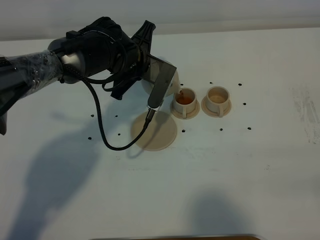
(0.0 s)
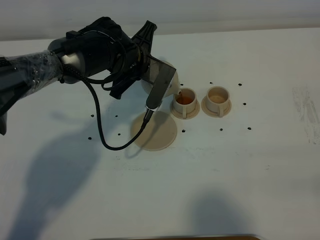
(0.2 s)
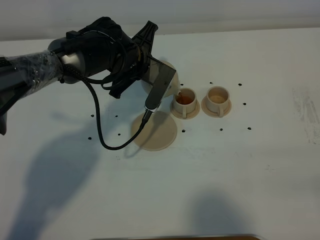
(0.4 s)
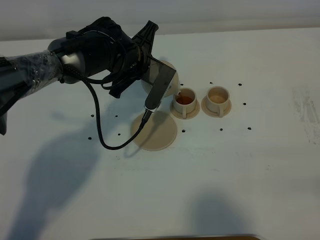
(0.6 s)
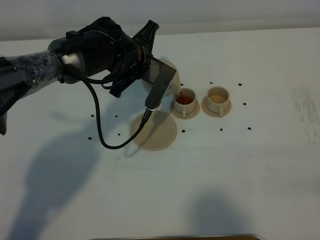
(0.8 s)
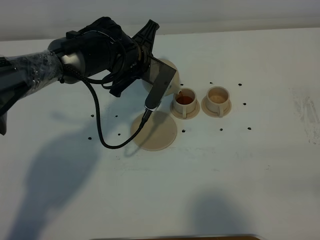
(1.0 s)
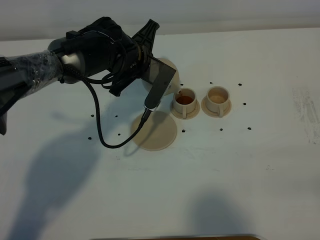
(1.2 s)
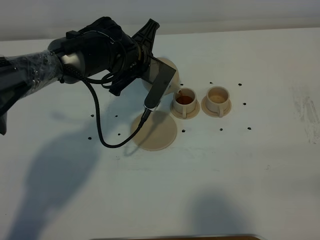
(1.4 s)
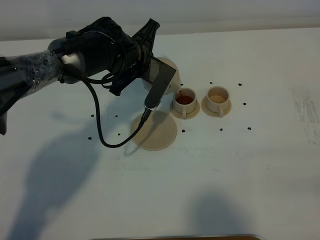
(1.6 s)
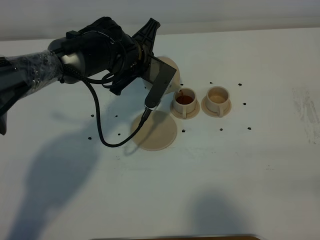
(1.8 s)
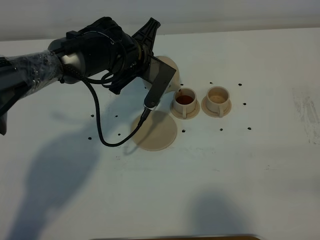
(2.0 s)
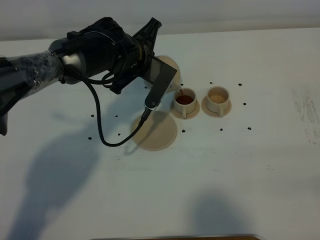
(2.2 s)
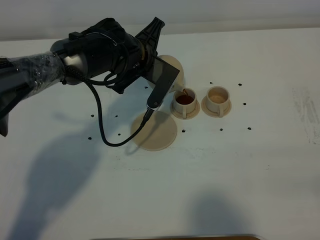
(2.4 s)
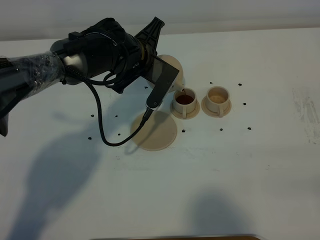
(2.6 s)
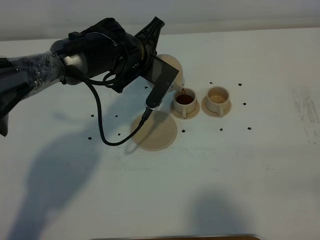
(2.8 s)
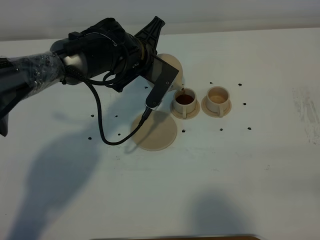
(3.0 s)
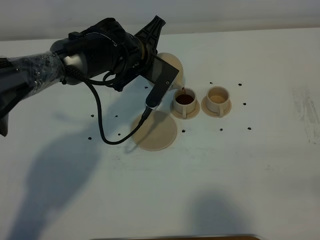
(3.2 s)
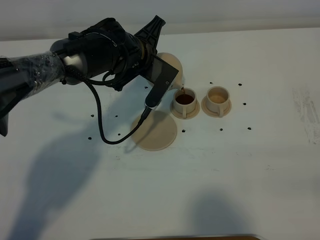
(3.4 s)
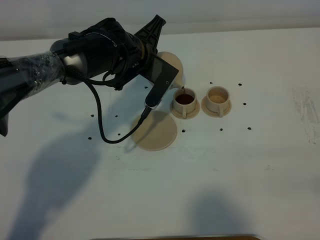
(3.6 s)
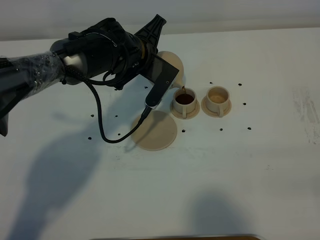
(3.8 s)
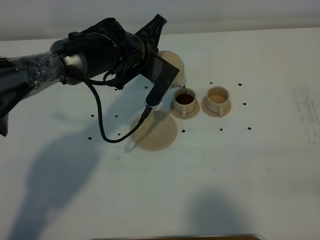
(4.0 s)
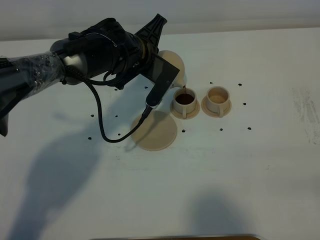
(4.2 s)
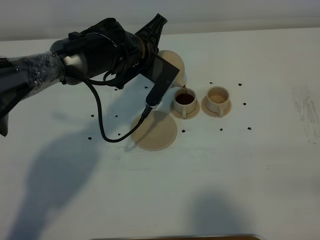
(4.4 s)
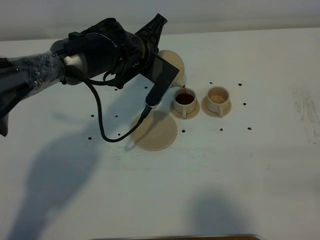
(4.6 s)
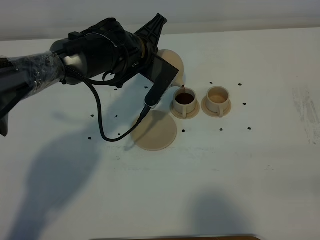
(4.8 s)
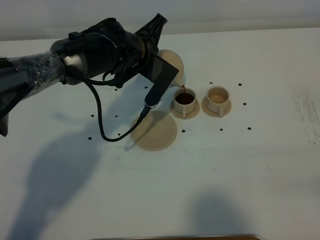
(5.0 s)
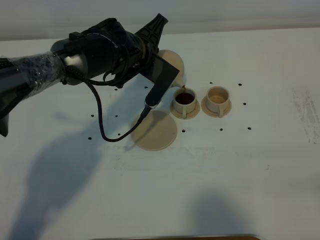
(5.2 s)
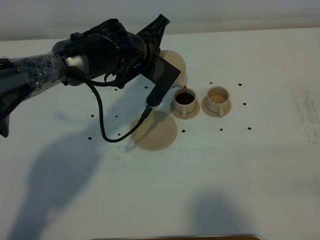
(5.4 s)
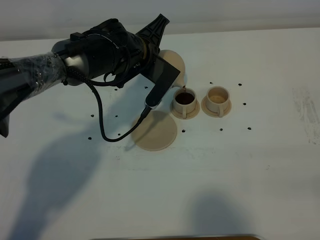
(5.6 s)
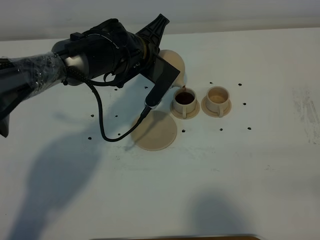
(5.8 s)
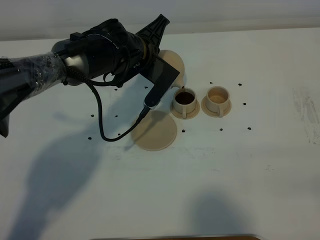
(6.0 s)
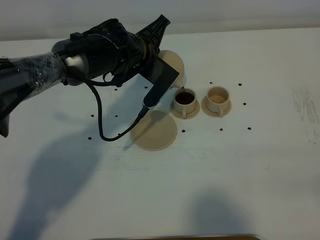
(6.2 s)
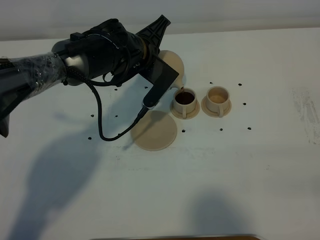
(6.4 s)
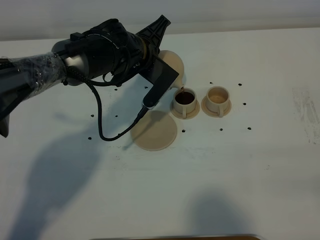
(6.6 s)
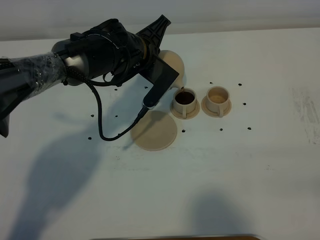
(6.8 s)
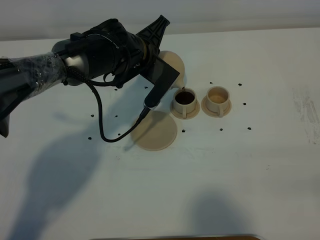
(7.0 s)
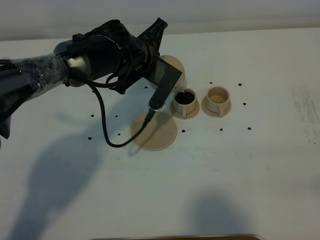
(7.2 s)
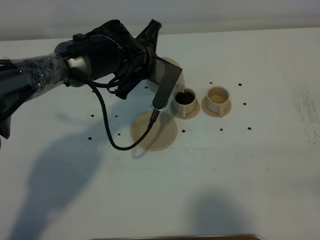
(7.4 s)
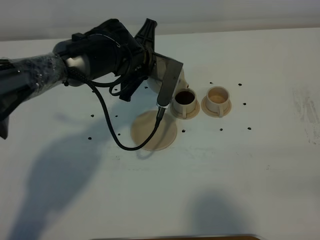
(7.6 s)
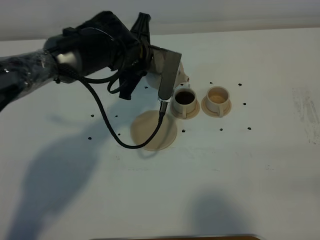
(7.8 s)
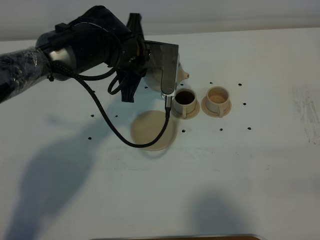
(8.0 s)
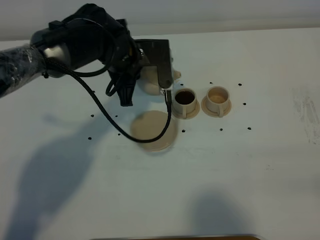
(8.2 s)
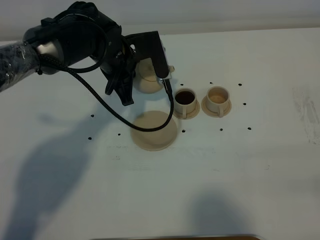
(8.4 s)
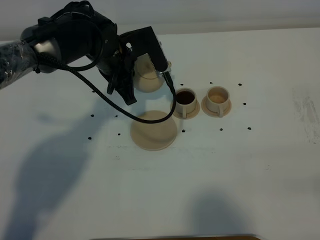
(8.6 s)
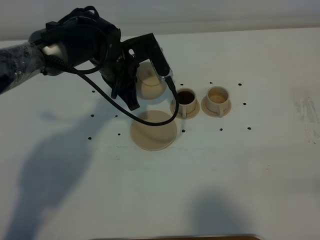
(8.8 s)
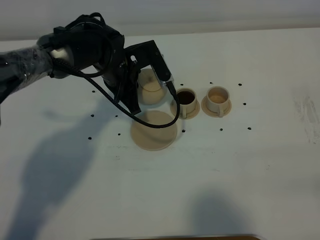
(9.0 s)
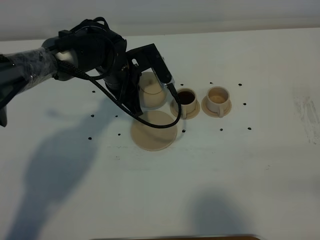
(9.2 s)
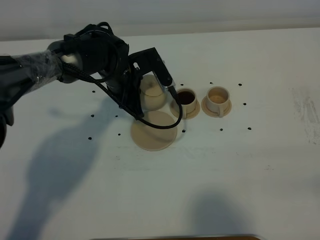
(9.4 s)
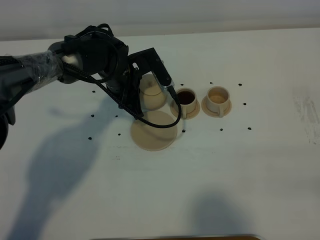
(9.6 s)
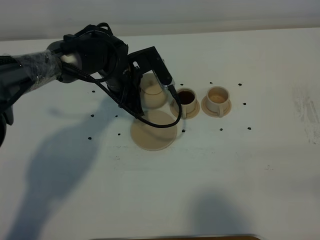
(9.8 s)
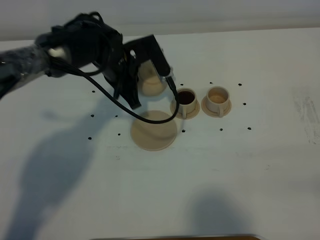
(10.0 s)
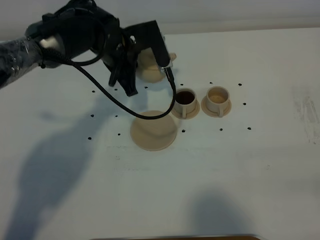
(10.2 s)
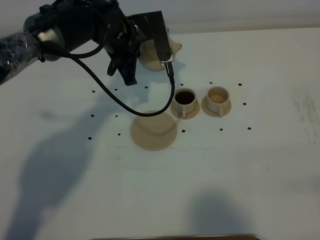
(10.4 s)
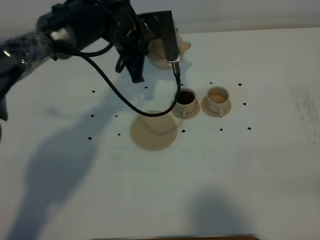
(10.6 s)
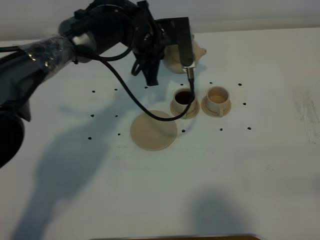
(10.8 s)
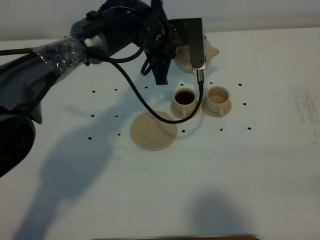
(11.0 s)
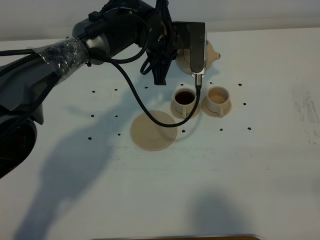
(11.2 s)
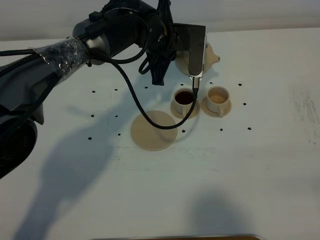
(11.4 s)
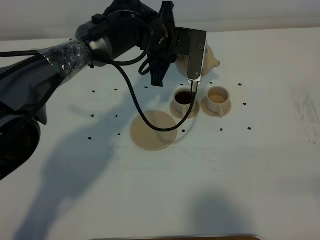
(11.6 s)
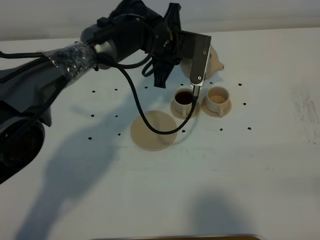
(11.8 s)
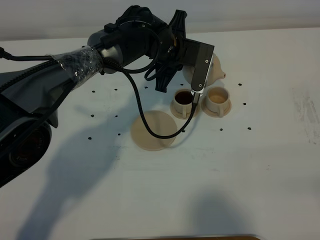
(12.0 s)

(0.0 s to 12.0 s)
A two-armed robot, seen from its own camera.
Task of the whole recording: grasp the brown teapot and pour the tea into the two brown teacups one by one, put the brown teapot back in its original place.
0.0 s - 1.6 s: The grippers move only a little.
1.6 s - 3.0 s: Both grippers stay about where they are.
3.0 s - 4.4 s: Neither gripper changes place.
4.4 s - 6.0 s: Both grippers stay about where they are.
9.0 s - 10.4 s: The left gripper moves upward, about 5 cm.
10.4 s - 12.0 s: The left gripper heads to the right, covering approximately 10 cm.

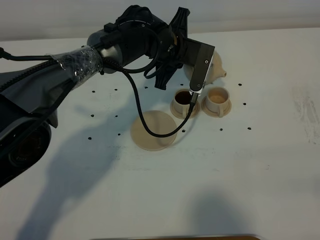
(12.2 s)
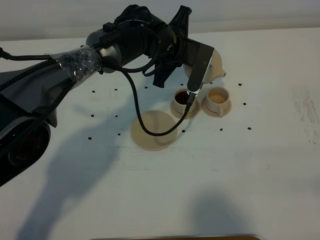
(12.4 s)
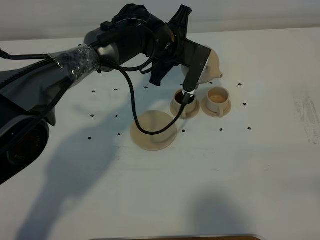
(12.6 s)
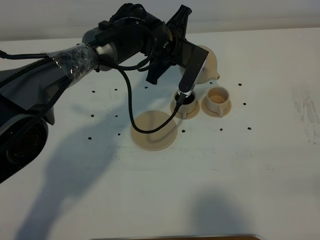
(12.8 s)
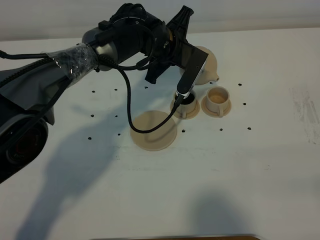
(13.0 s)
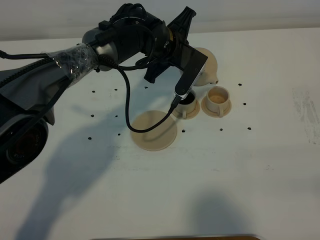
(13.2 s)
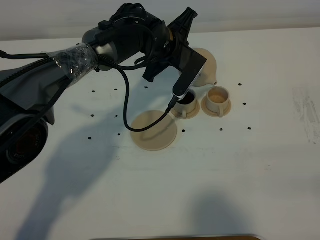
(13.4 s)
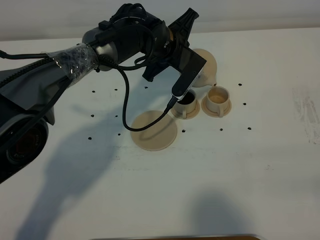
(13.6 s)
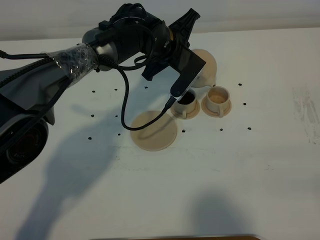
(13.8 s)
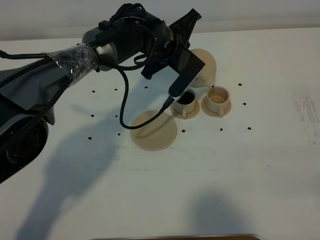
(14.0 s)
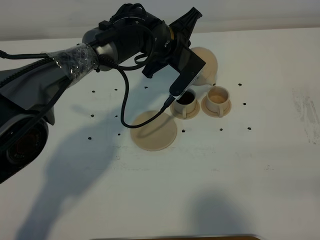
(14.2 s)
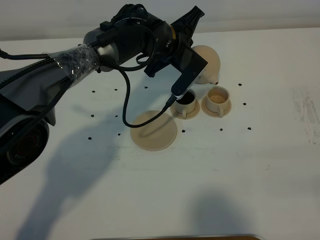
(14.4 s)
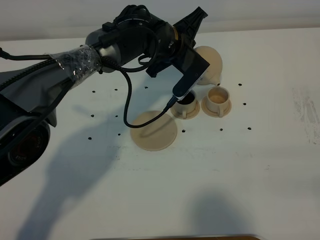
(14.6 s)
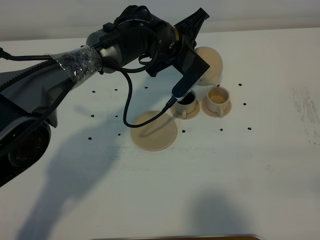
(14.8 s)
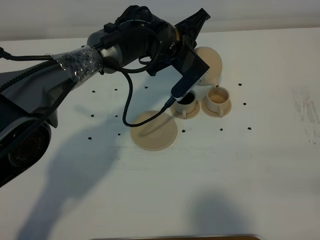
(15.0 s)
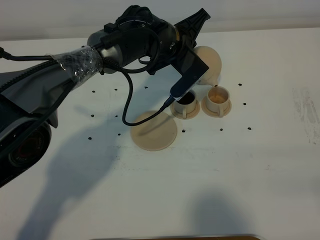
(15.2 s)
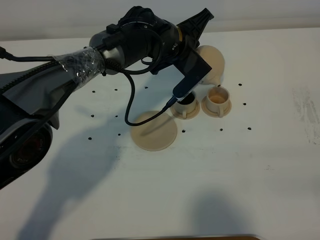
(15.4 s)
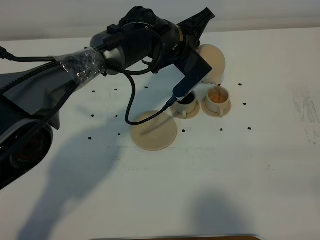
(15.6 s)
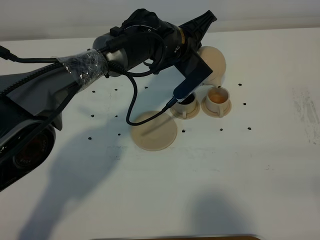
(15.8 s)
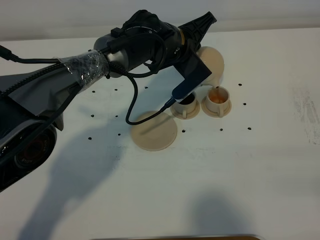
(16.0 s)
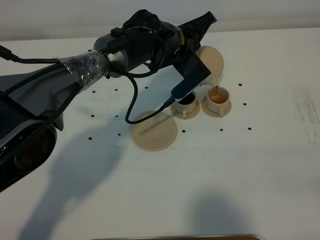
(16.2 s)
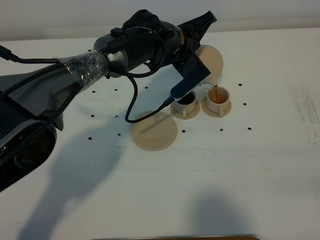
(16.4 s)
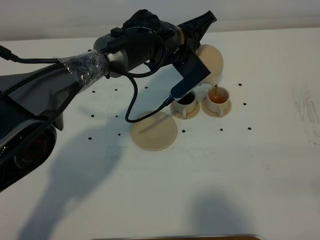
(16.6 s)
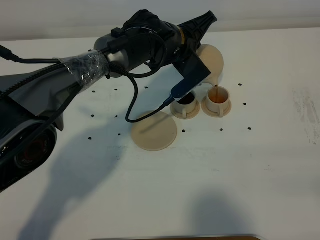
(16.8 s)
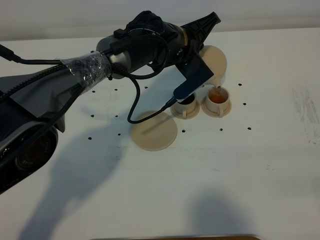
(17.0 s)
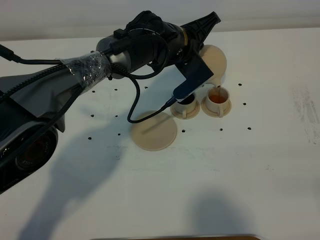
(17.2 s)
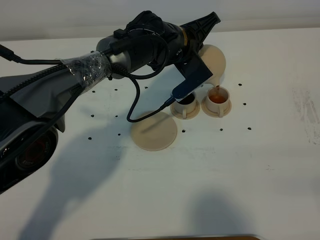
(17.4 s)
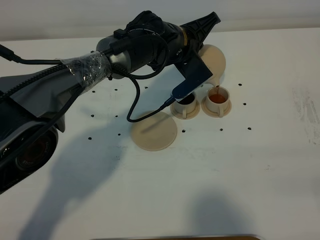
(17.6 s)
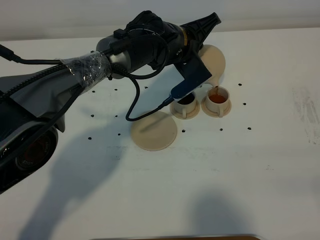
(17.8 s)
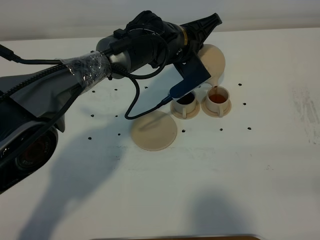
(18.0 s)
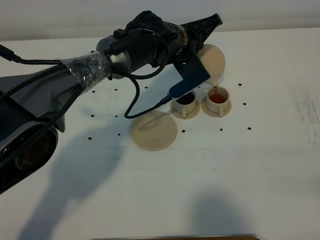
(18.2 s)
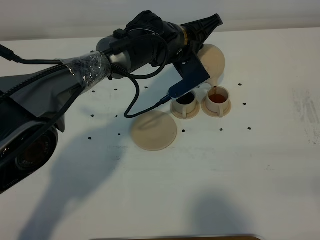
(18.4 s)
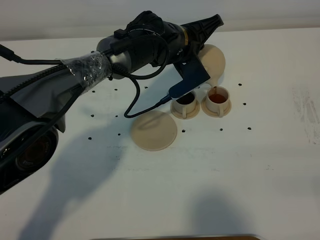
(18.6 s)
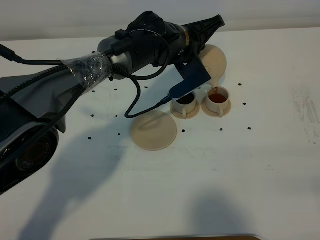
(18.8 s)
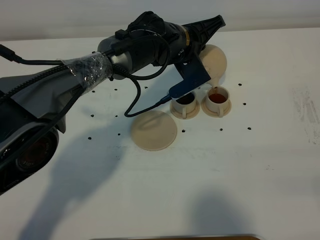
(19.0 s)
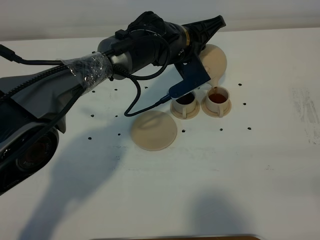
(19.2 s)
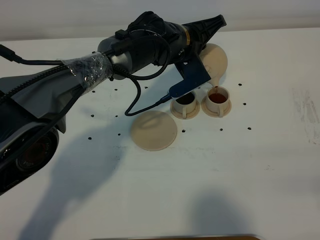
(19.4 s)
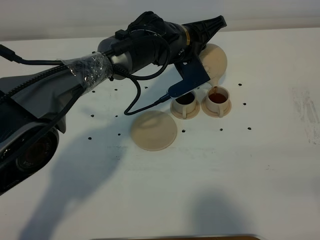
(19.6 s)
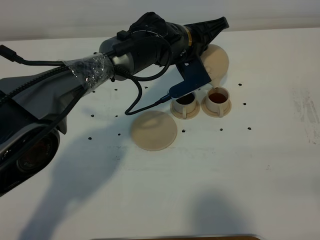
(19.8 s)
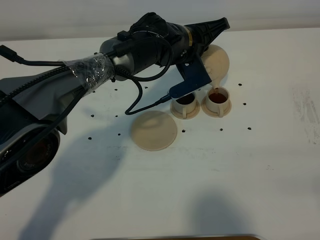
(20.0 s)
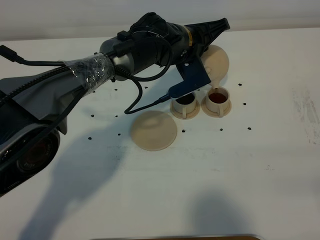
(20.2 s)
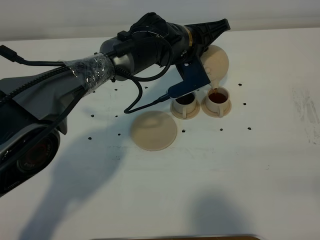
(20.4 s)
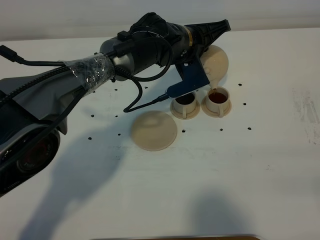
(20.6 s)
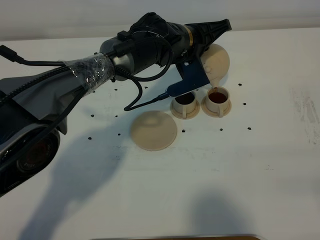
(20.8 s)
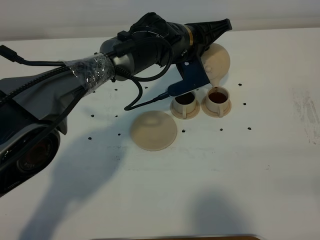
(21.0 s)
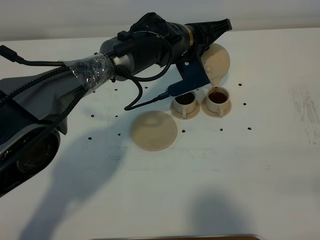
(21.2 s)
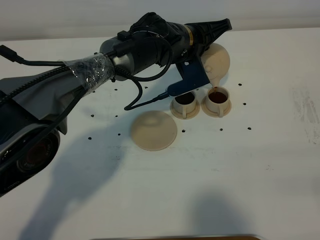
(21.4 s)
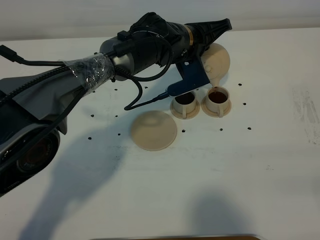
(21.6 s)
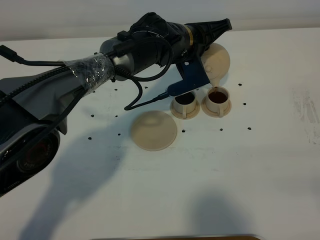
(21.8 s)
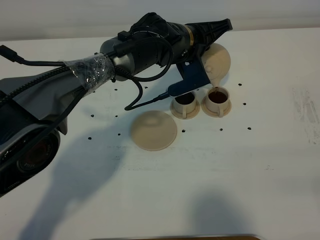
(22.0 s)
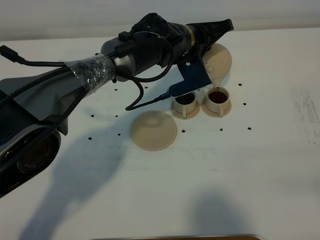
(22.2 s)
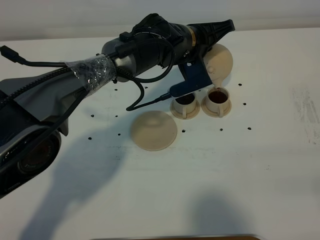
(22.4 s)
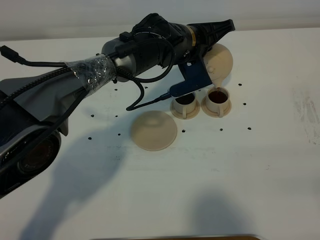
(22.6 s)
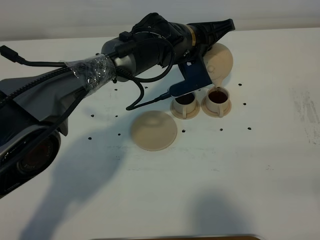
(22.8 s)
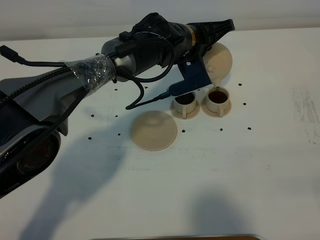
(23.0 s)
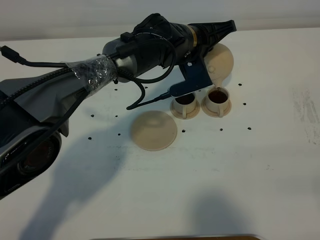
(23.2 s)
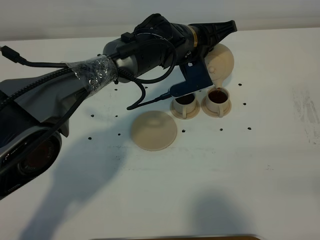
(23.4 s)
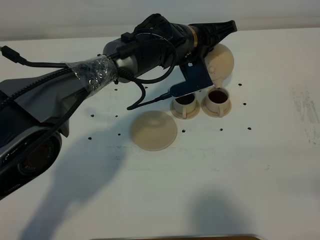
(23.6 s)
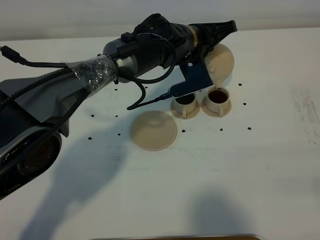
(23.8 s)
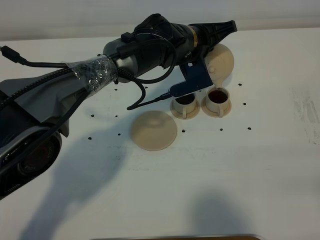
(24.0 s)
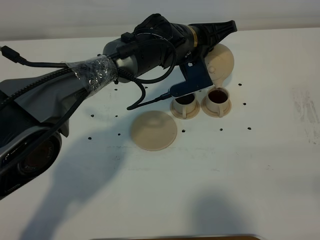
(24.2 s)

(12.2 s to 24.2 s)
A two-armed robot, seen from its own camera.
Task of the whole recording: grasp the brown teapot and pour the tea into the two brown teacups one by one, put the brown teapot back in its original place.
13.8 s - 16.6 s: The grippers stay close to where they were, moving slightly.
16.6 s - 19.8 s: The grippers move only a little.
19.8 s - 21.2 s: The two grippers keep their place.
21.2 s - 24.2 s: Both grippers stay about where they are.
